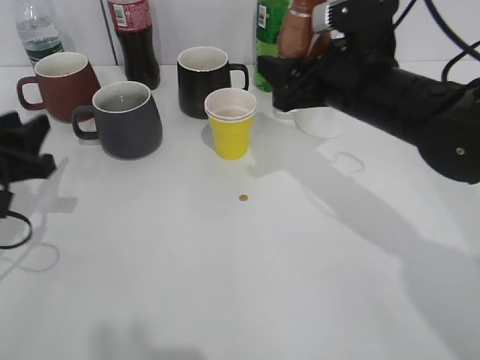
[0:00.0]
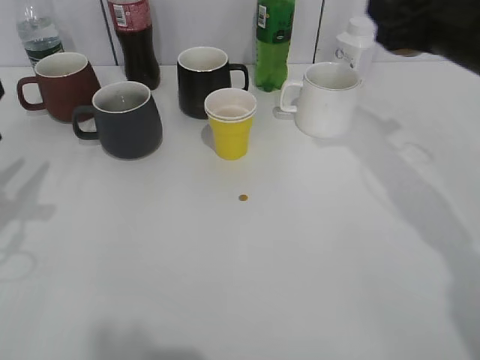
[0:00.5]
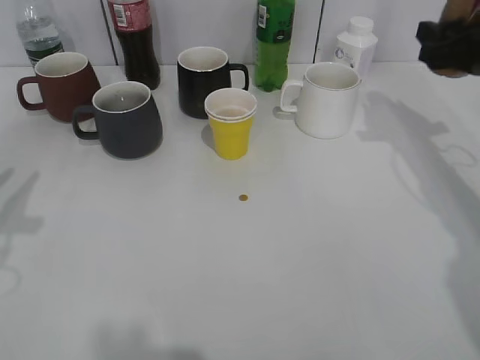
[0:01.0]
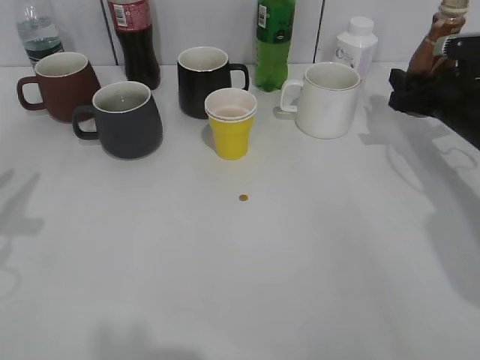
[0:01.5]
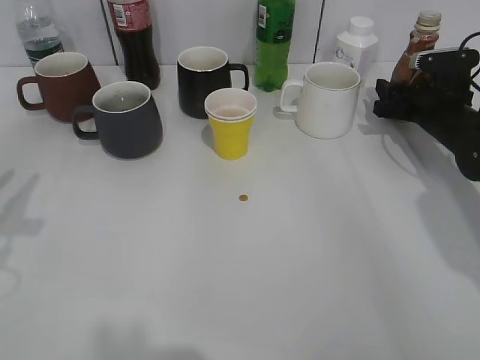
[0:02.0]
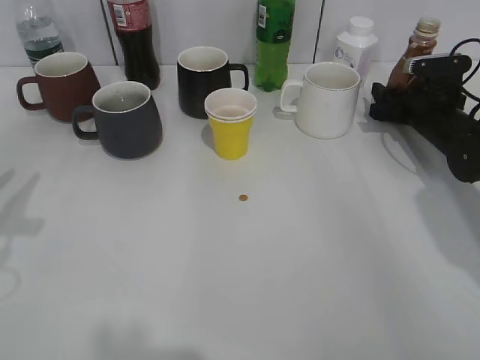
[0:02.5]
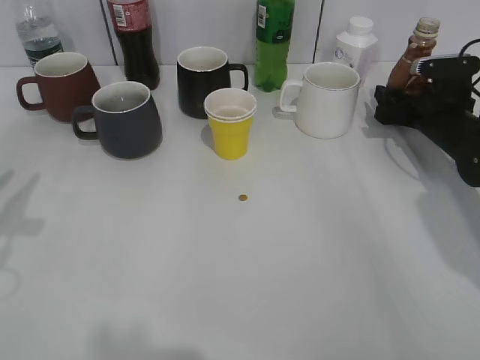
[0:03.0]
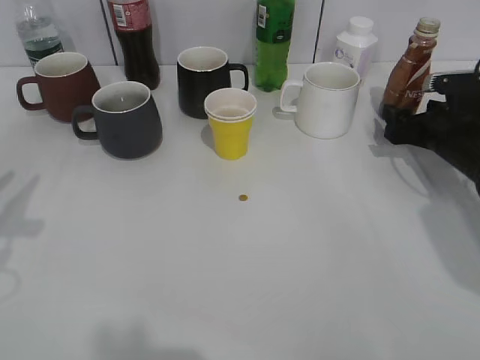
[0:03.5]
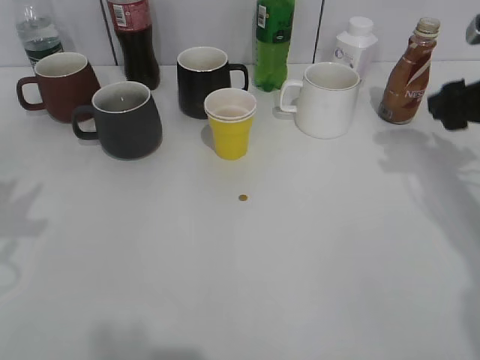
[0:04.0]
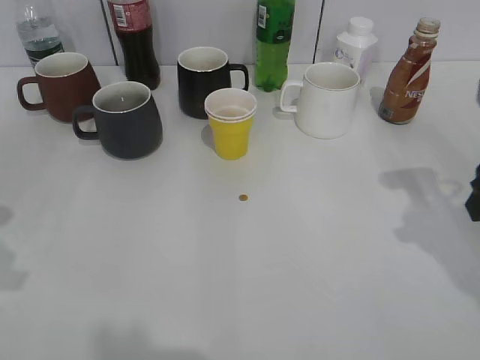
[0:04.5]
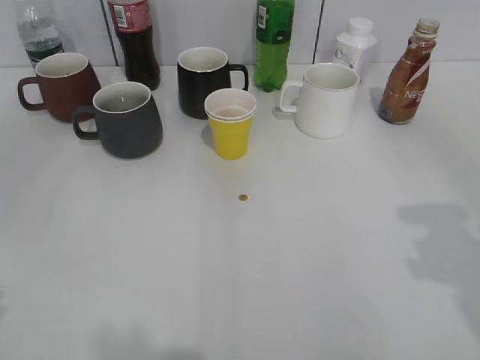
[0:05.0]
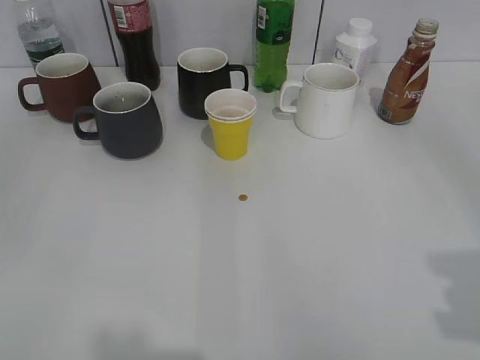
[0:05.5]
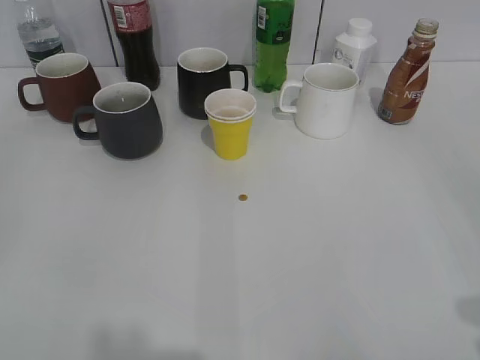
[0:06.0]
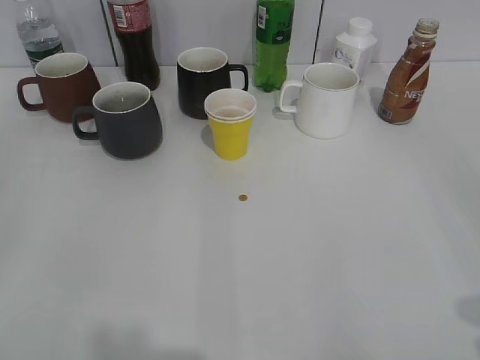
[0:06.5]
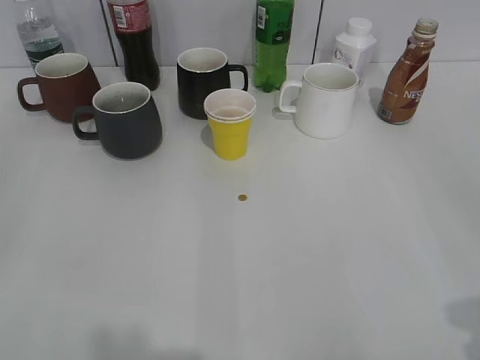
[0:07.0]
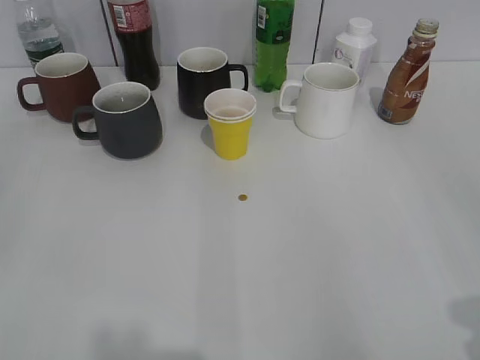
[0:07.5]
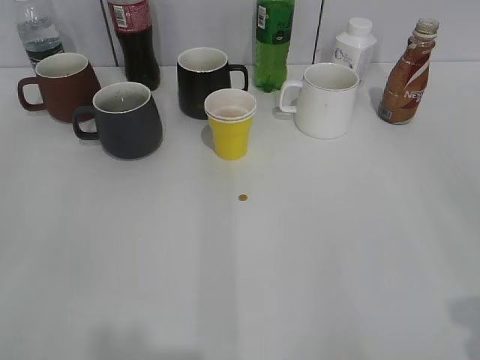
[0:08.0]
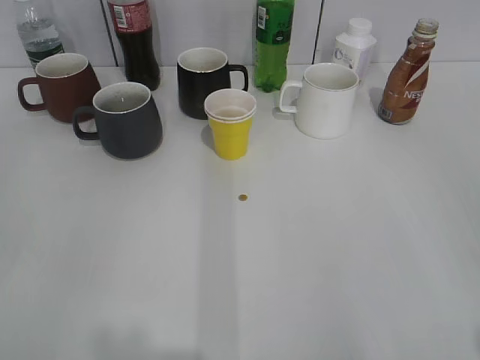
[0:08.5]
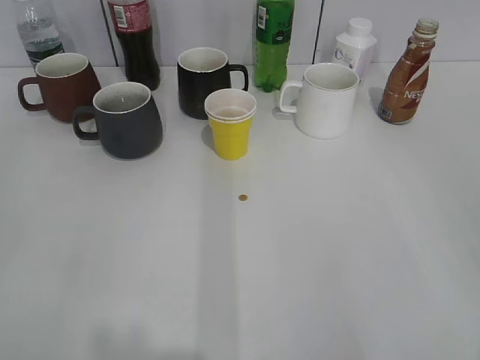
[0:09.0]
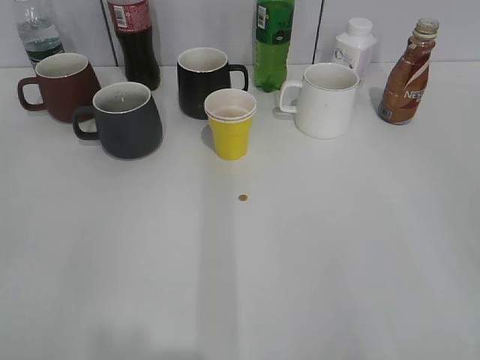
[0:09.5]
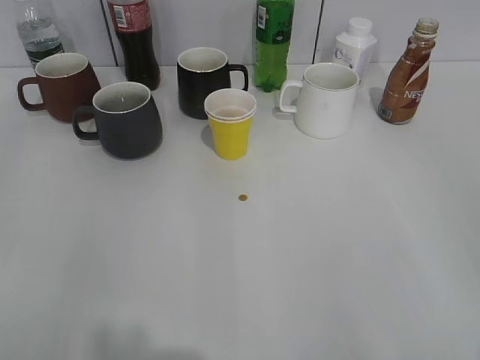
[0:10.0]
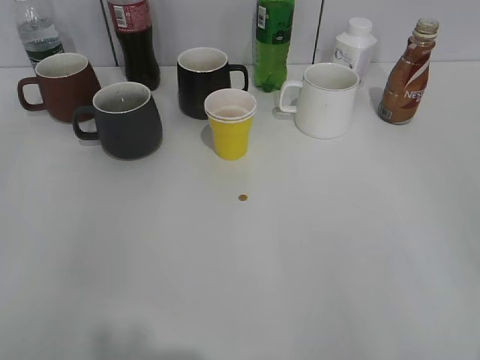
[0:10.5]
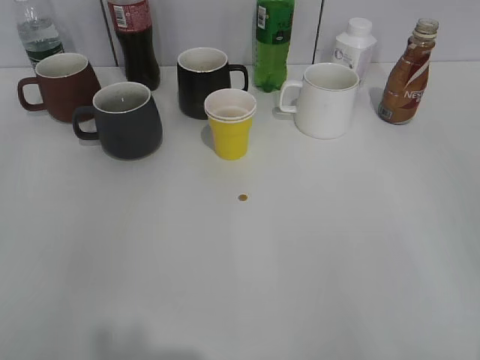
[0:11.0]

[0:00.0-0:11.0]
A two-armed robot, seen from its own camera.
Step, 0:00.0 to 0:03.0: Place the coffee bottle on the table with right gripper.
0:00.0 to 0:02.0: The right gripper moves to the right, forward and downward, approximately 20 cm. The left gripper moves upward and backward, some 10 cm.
0:02.0 to 0:03.5: The right gripper opens up.
0:03.5 to 0:05.5: The right gripper travels backward and upward by about 40 cm.
0:09.0 to 0:11.0: Both grippers stay about where they are.

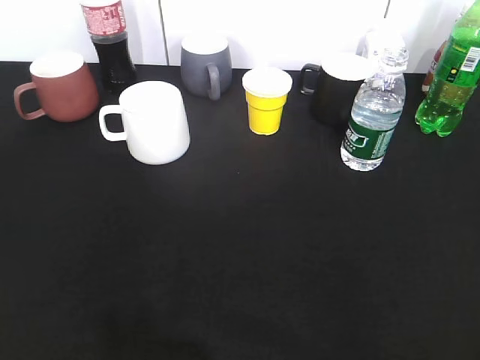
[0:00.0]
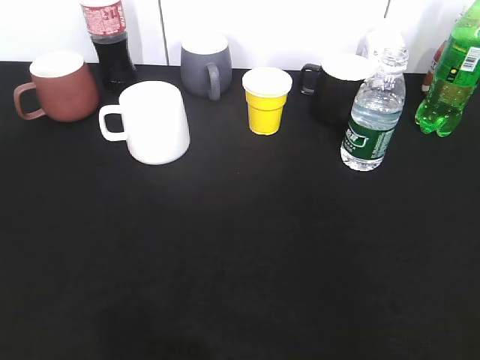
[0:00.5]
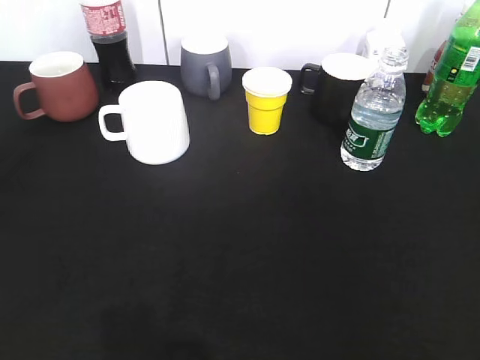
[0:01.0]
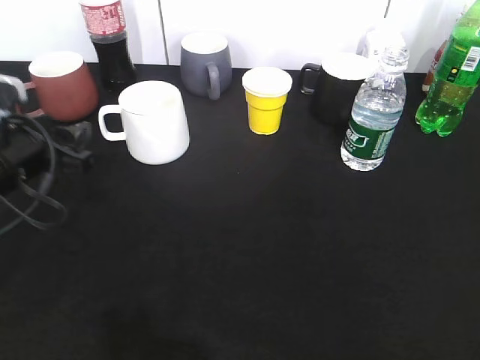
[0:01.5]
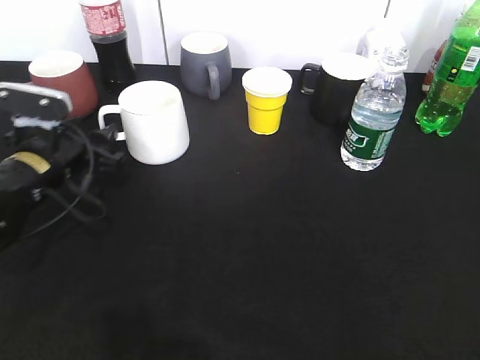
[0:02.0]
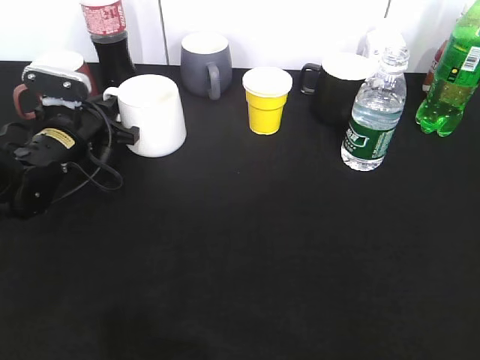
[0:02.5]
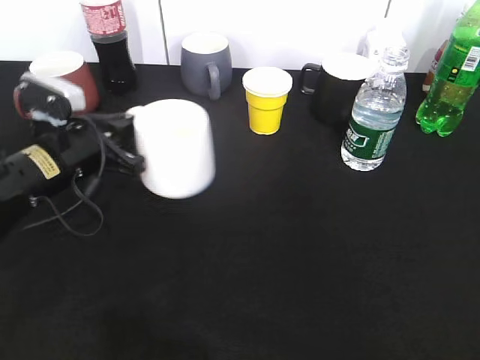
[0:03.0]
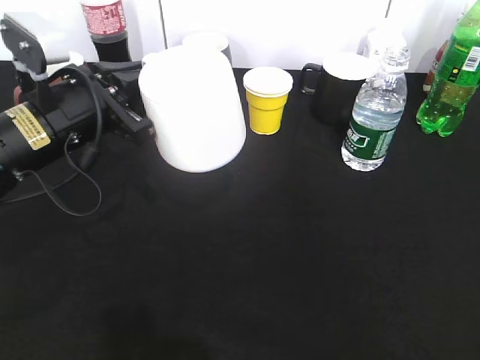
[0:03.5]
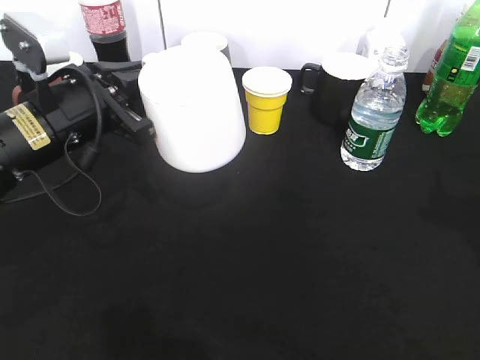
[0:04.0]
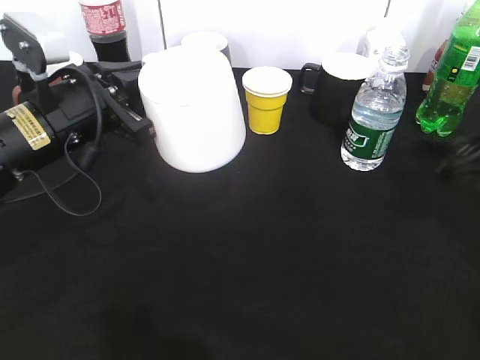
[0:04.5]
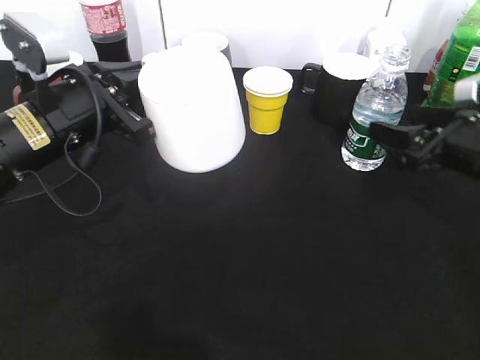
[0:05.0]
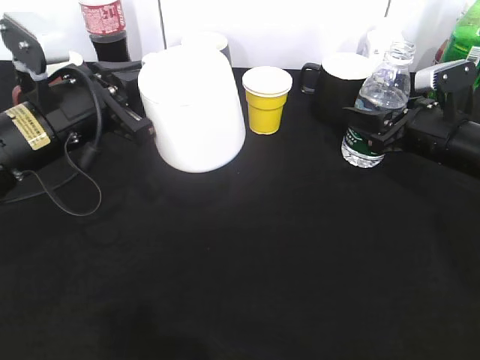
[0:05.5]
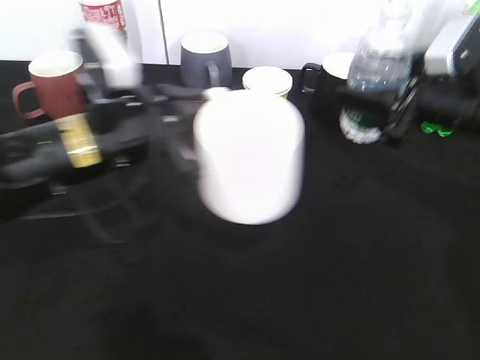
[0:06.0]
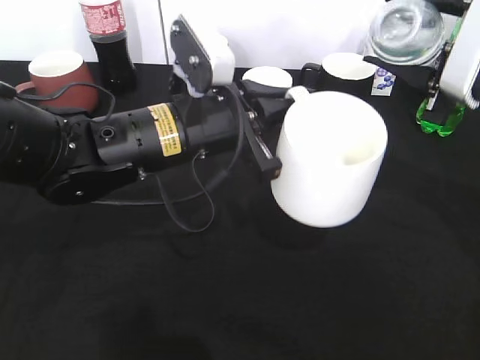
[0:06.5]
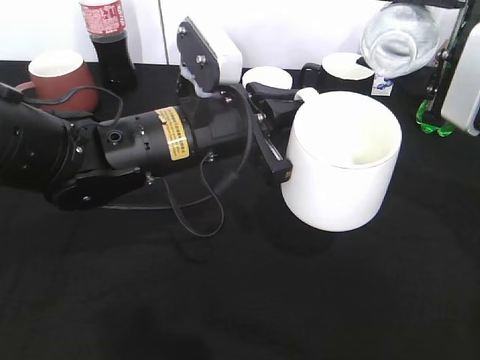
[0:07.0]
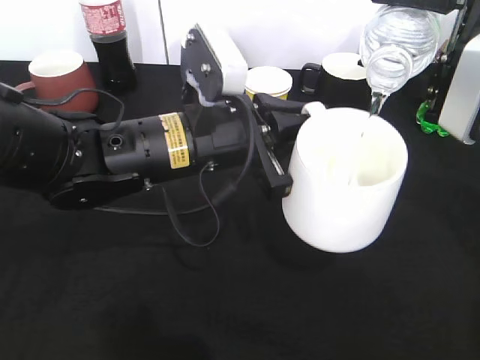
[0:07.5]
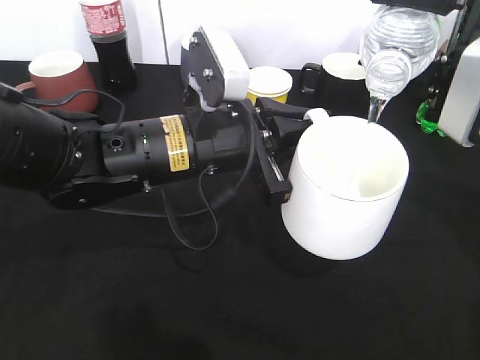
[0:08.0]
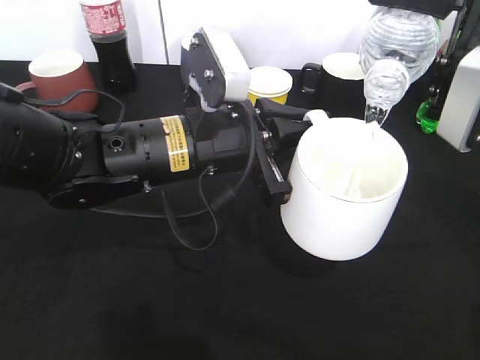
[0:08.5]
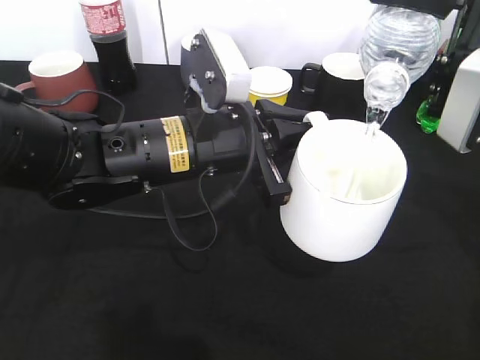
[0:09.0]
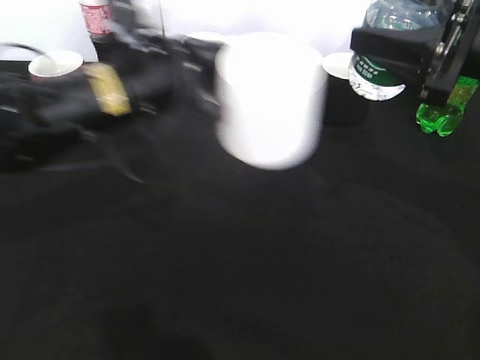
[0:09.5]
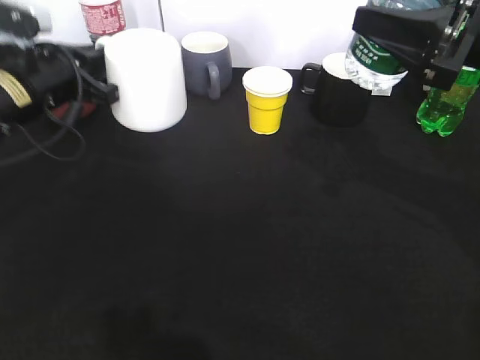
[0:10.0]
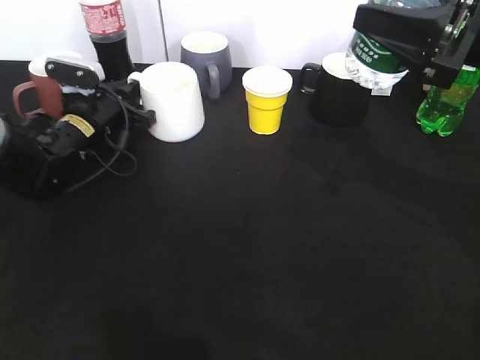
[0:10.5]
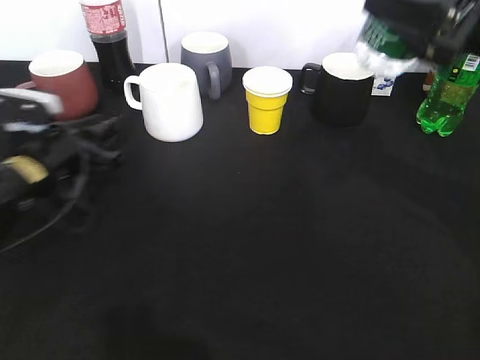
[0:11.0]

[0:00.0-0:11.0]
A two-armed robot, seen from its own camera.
Step, 0:00.0 to 0:02.0: Grasp the white cup with left gripper.
Step, 0:02.5 to 0:03.5: Lift the white cup with left gripper.
Step, 0:04.0 to 0:05.5: Grasp the bottle with water with right gripper.
Step, 0:06.0 to 0:09.5: Pour the water from bottle to cup with right gripper.
Step, 0:10.0 to 0:10.5: Place the white cup on the table with left gripper.
0:00.0 to 0:02.0: The left gripper moves forward and downward, about 35 cm, and opens.
0:02.0 to 0:03.5: The left gripper shifts some 10 cm upward, and closes.
0:03.5 to 0:05.5: The right gripper heads forward and downward, covering about 40 cm, and closes.
0:05.5 to 0:07.5: The right gripper travels upward and backward by roughly 15 cm, while the left gripper travels to the right by some 15 cm.
0:07.5 to 0:09.0: The grippers make only small movements.
0:09.0 to 0:11.0: The left gripper heads to the left and downward, covering some 20 cm, and opens.

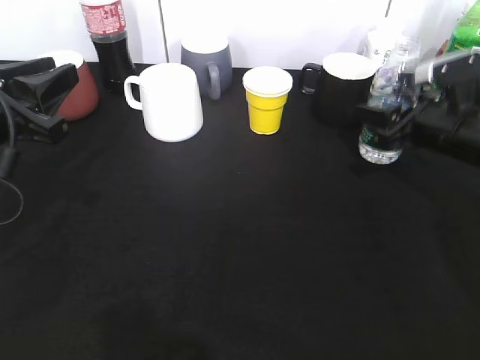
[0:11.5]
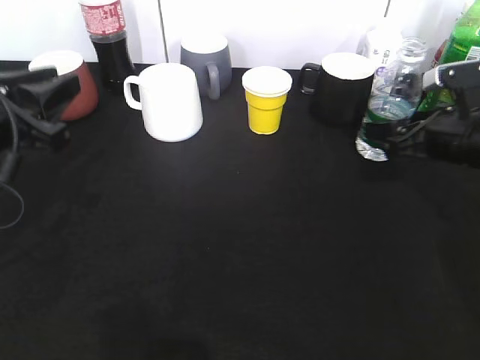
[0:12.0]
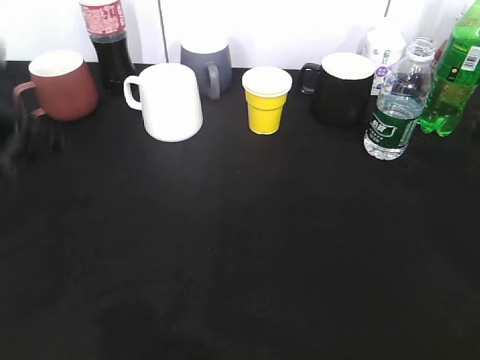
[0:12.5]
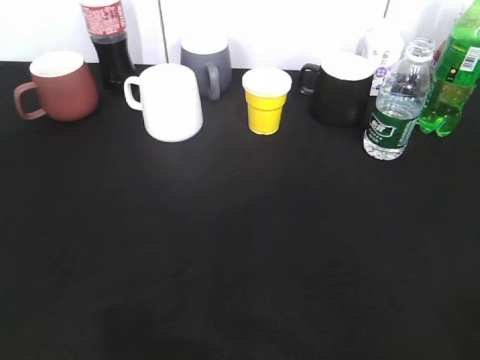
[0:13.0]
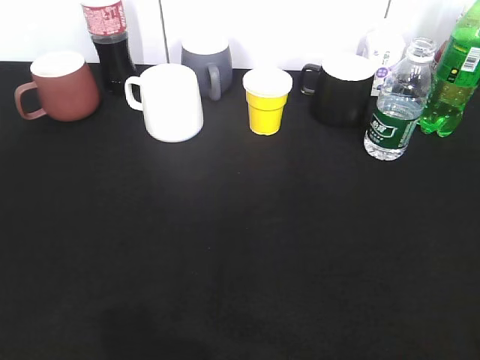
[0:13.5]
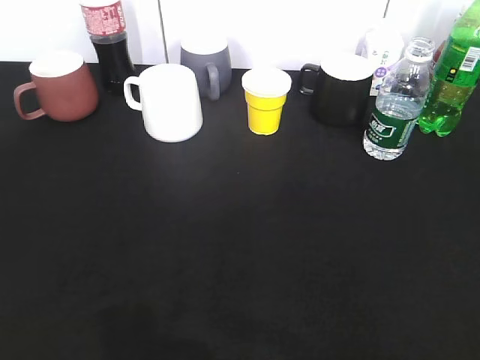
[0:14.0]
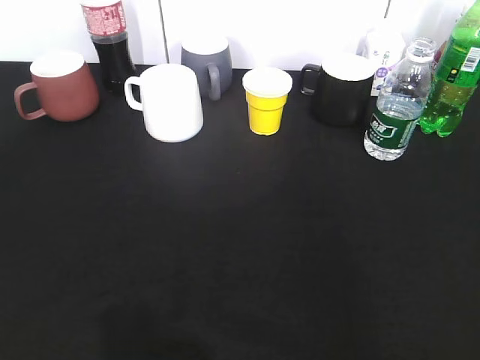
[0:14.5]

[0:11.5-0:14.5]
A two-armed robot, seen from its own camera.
0:11.5 to 0:13.0: The right gripper travels backward and upward by approximately 40 cm, and opens up; the left gripper moves backward and upward, about 20 cm.
